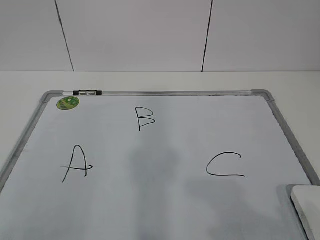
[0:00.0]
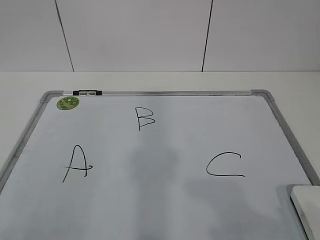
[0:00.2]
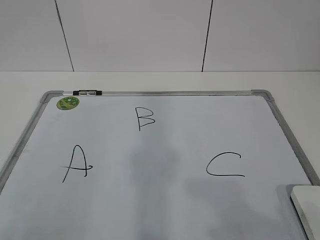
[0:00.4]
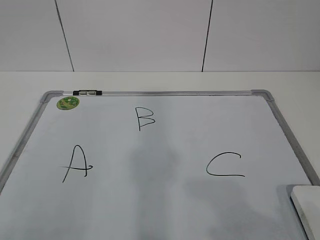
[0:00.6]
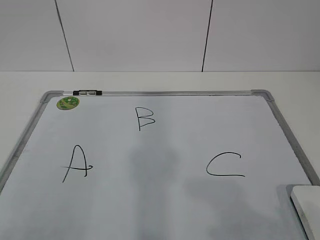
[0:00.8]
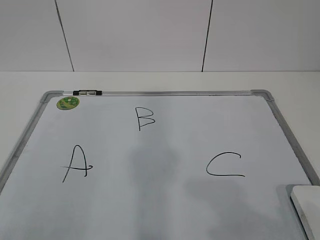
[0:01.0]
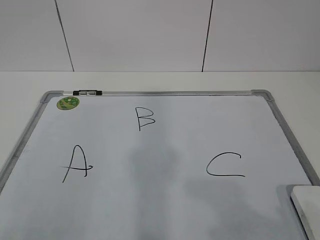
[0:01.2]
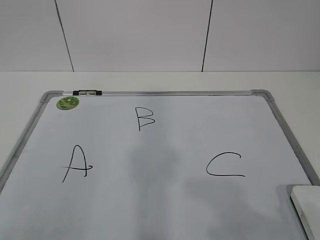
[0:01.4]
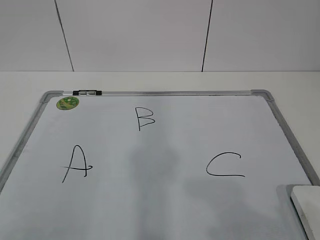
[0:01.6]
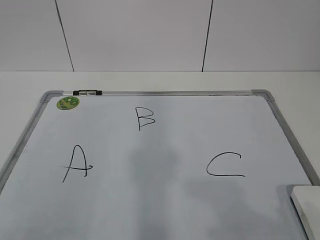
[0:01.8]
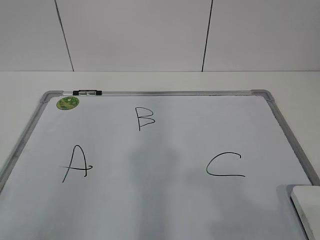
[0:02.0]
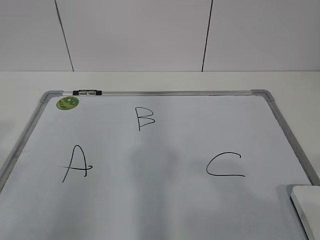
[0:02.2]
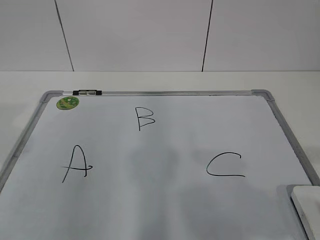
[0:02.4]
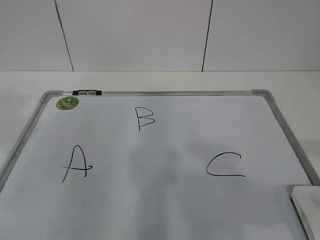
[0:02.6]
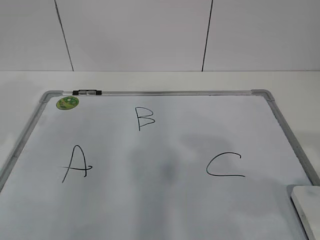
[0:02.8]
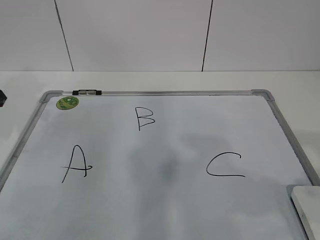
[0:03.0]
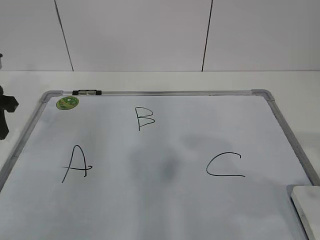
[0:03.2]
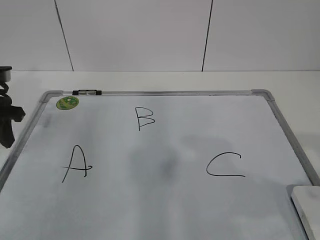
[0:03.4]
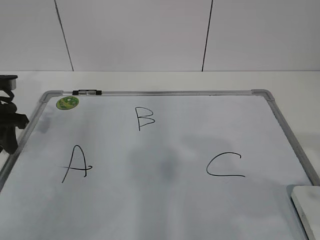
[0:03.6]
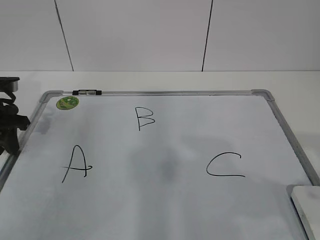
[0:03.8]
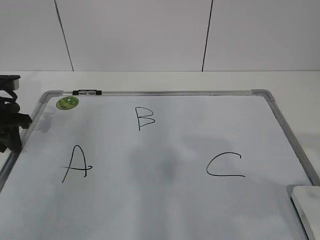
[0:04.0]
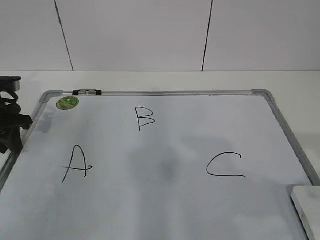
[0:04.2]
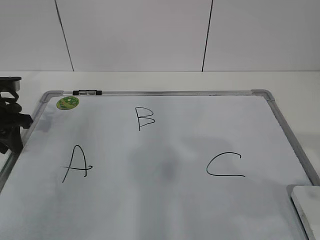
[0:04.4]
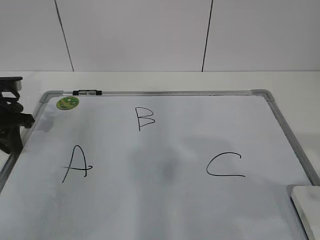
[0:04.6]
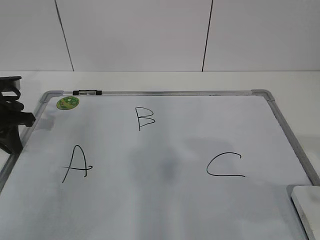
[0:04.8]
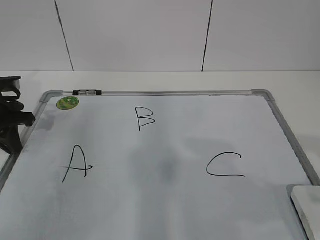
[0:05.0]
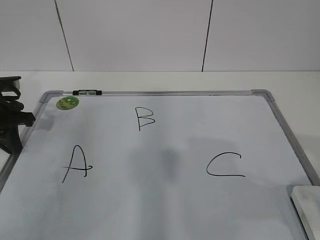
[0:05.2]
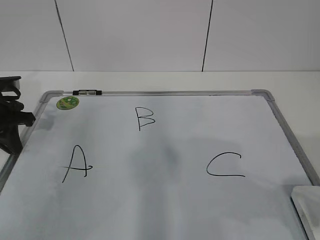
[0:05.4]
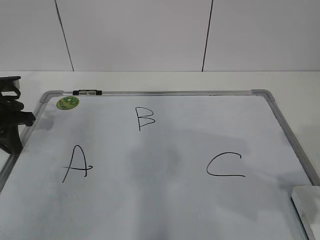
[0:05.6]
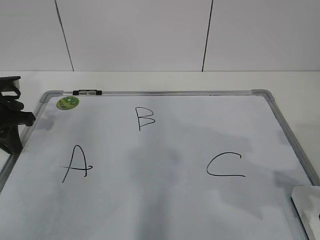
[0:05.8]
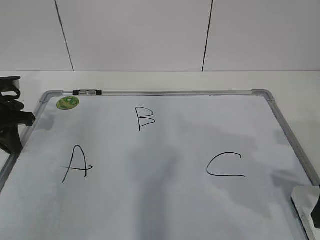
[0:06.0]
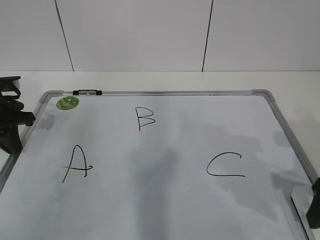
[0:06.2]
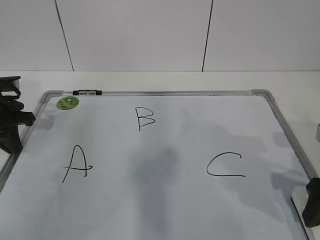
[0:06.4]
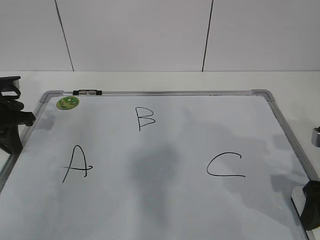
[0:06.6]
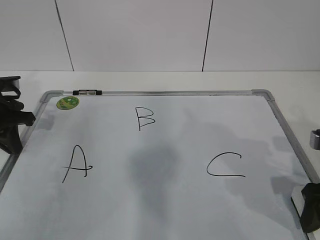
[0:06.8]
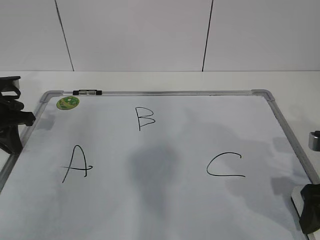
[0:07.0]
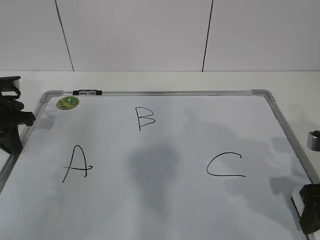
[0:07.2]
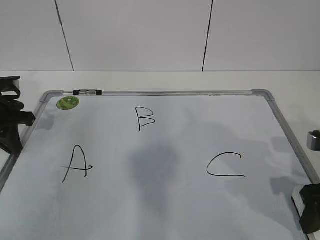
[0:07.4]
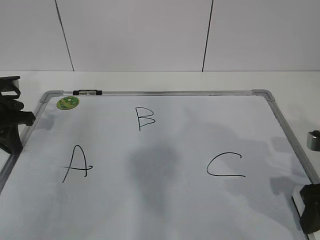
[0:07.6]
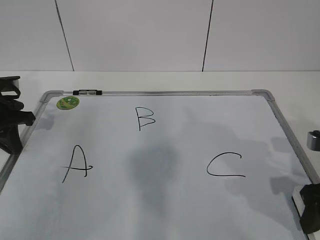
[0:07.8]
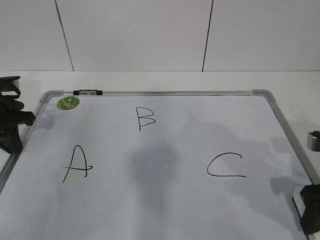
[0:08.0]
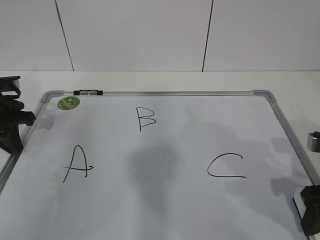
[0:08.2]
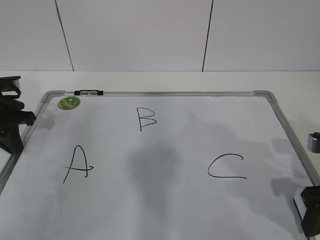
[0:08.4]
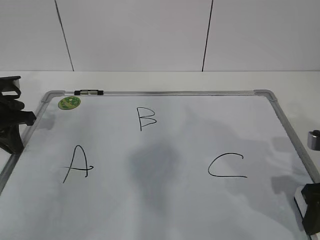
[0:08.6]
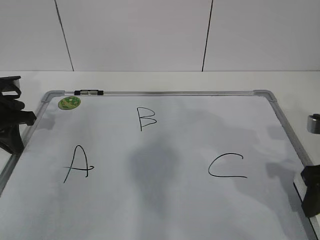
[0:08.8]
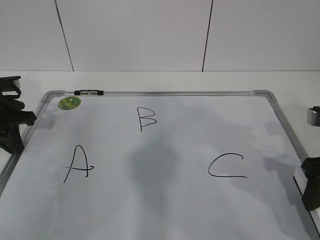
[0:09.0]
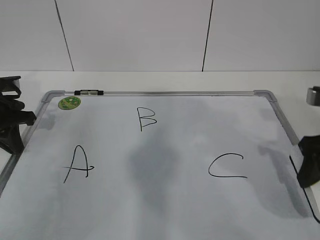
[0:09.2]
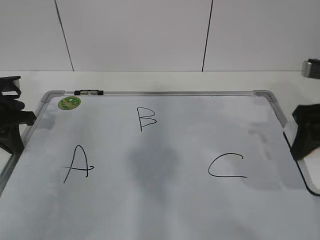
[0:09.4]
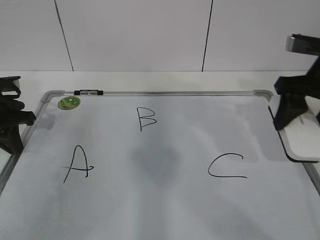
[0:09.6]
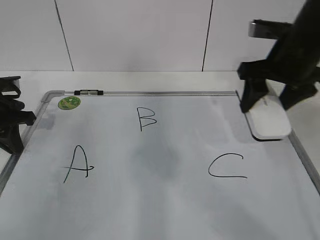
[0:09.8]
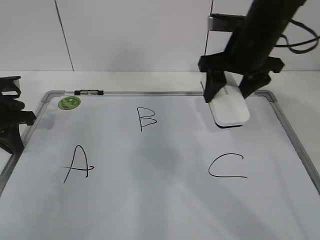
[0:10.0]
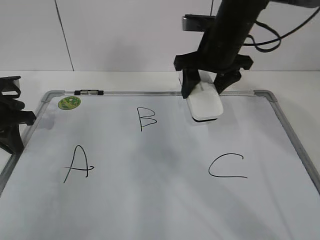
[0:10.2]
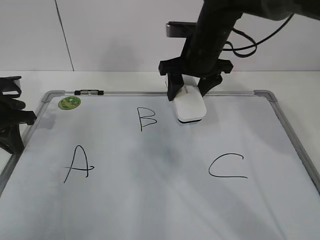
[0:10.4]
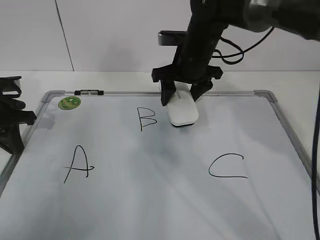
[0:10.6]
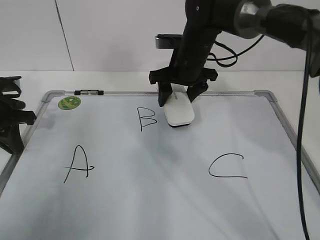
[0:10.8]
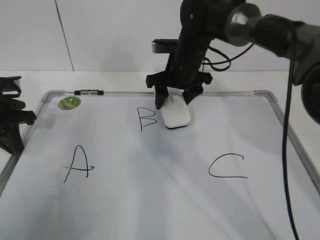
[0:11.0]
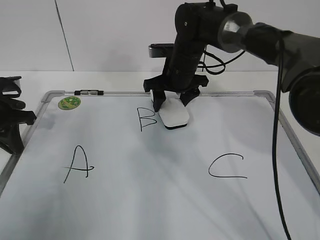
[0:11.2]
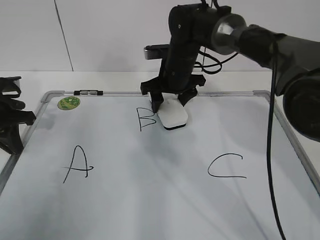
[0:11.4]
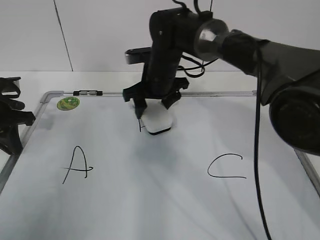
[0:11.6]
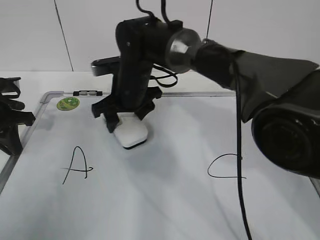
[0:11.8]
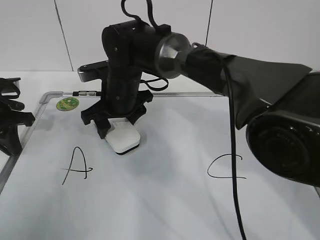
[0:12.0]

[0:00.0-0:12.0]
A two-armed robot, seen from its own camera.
Task of the whole recording: pick up the eraser on the blackboard and erase the letter "B".
Step, 0:00.0 to 0:03.8: Hold the drawing board steady with your left hand.
Step, 0:07.2 to 0:11.4: Erase the letter B with your right hand.
0:03.0 to 0:04.4: The left gripper heads downward, covering some 10 cm.
0:04.4 to 0:06.0: The right gripper moves forward and downward, some 10 cm, and opens up.
0:06.0 to 0:07.6: The right gripper changes place by approximately 5 cm, and closes up.
0:07.6 to 0:09.0: The grippers move only a little.
0:09.0 to 0:10.4: The right gripper travels forward and to the left by approximately 25 cm.
0:10.4 to 0:12.0: The right gripper shifts about 15 cm to the left and downward.

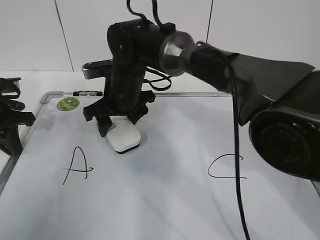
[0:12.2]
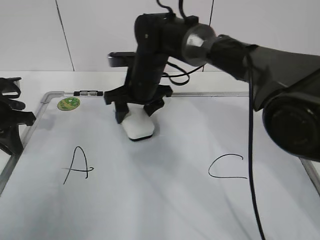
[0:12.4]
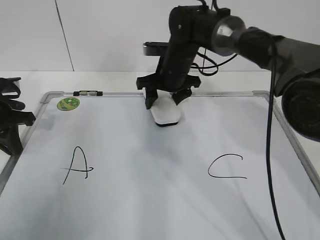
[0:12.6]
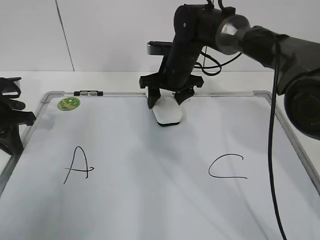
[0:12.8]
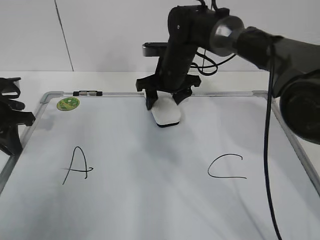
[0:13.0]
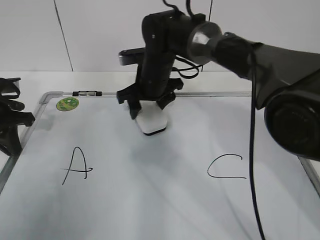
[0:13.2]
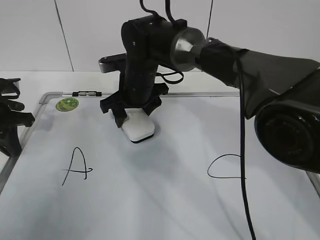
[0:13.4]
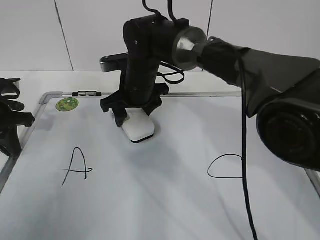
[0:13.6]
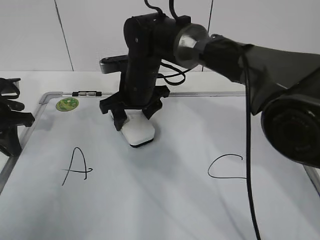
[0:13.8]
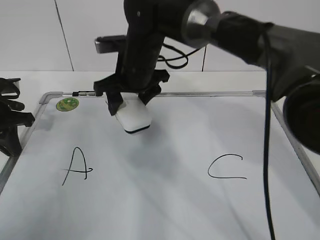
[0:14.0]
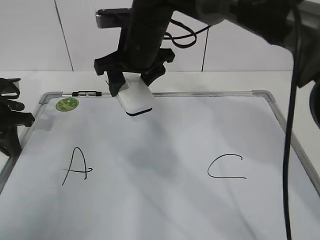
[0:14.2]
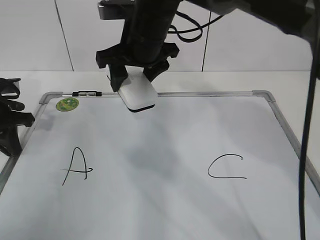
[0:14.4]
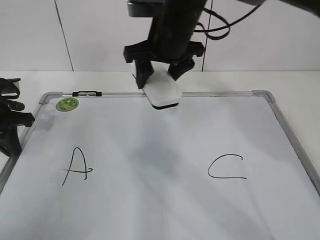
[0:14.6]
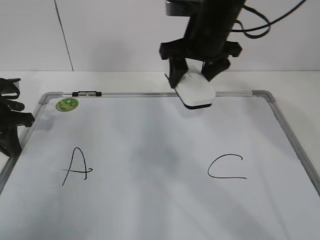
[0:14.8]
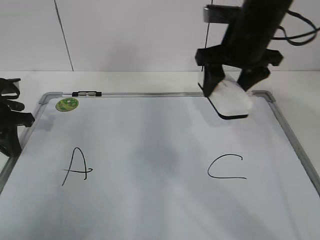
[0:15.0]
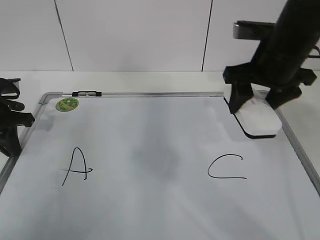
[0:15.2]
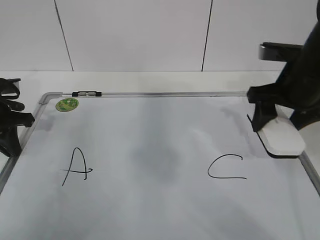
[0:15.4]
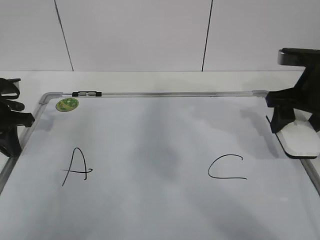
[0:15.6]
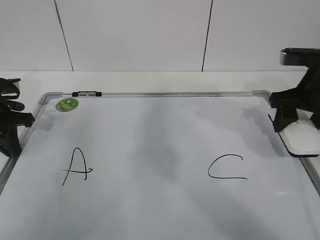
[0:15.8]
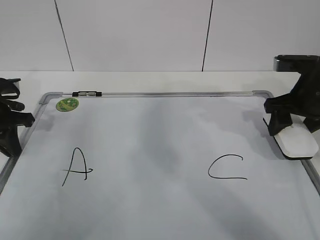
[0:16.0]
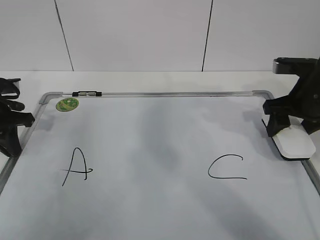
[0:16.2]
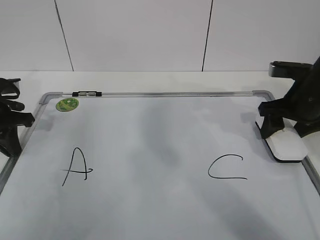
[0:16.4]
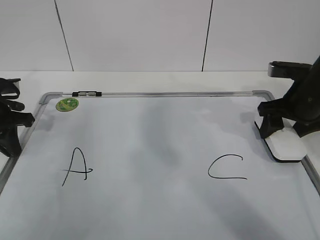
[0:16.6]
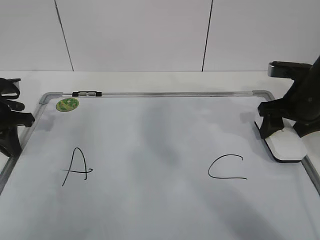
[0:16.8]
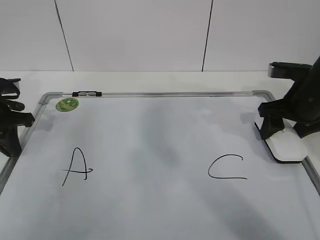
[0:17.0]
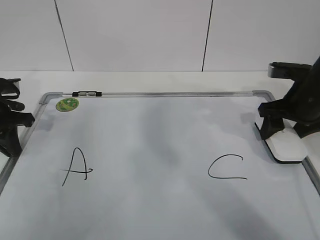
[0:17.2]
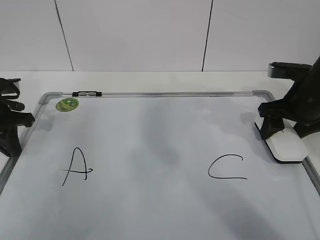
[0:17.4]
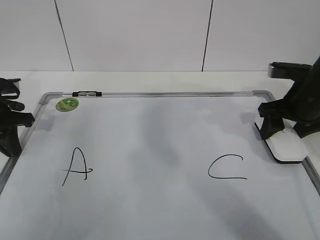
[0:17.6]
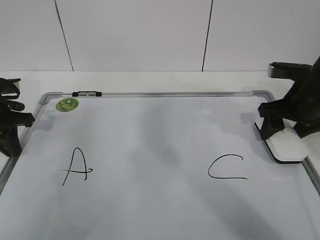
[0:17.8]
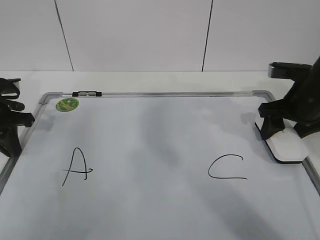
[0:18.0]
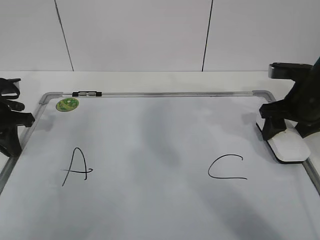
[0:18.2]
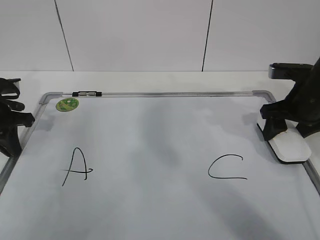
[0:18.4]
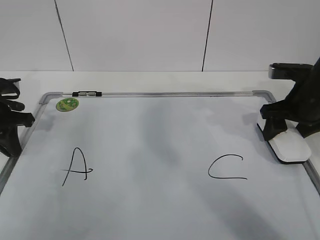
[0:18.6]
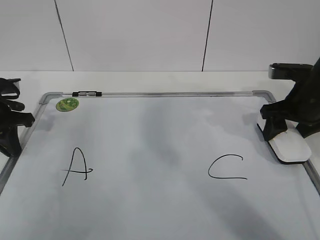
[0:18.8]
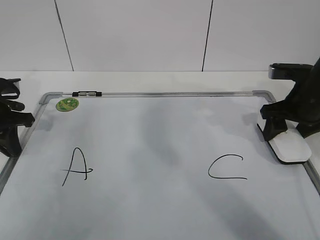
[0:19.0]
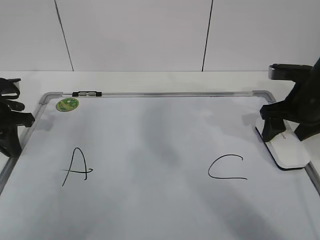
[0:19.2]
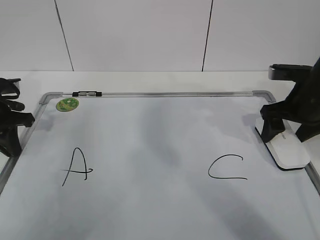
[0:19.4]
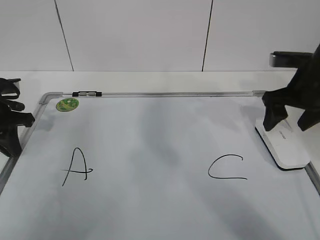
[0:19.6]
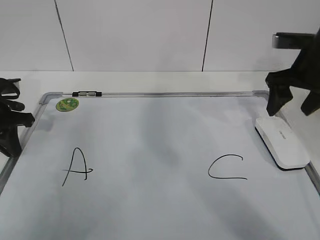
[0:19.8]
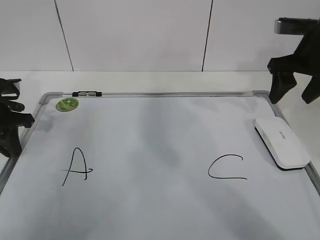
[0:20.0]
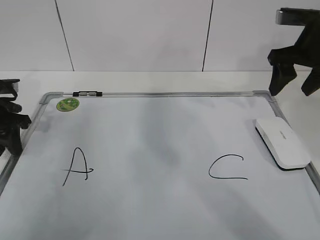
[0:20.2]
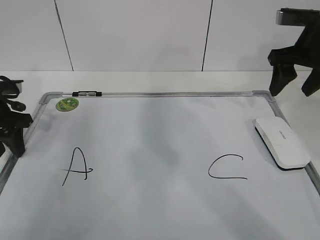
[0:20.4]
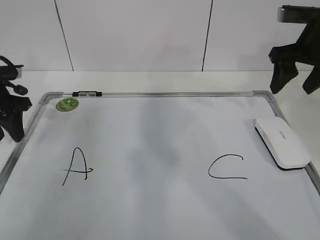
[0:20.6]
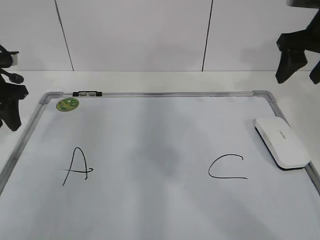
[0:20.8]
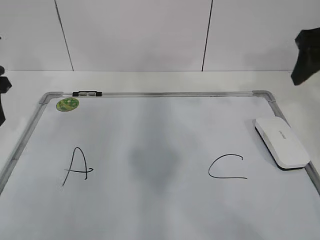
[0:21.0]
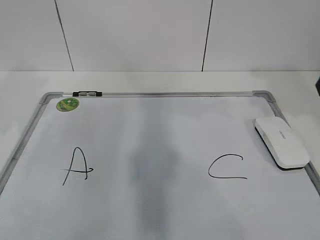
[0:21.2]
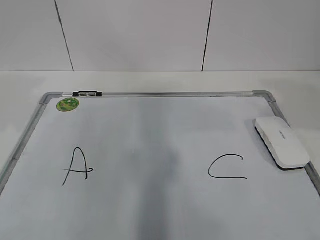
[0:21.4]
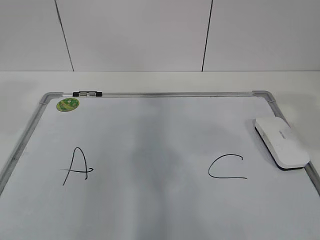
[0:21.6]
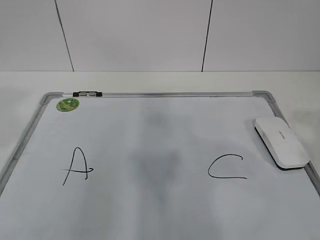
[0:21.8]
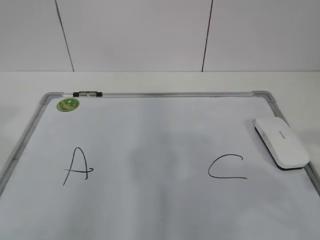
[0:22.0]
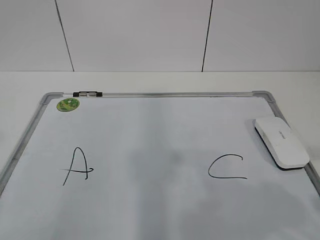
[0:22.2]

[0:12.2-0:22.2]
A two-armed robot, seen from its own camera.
Task of the whole recording: pick up the eraser on the blackboard and erase the letter "B".
Step, 0:12.2 to 0:15.8: Put down the eraser with your right hand.
0:12.2 to 0:13.6: The right gripper reaches approximately 10 cm to the right, then returns.
0:13.6 to 0:15.0: The right gripper travels to the right and upward by some 20 cm.
0:15.0 to 0:16.4: The right gripper is displaced to the right and downward by approximately 15 cm.
0:16.4 to 0:18.0: Neither gripper changes place.
0:18.0 to 0:19.4: The right gripper opens its fingers.
0:19.4 to 0:20.8: The left gripper moves upward, some 5 cm, and opens, while the right gripper moves upward, roughly 10 cm, and closes.
0:20.8 to 0:22.2: Both grippers move backward, some 35 cm.
